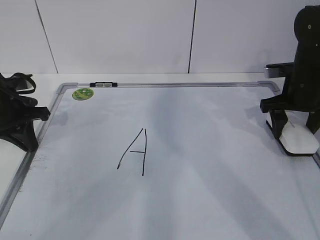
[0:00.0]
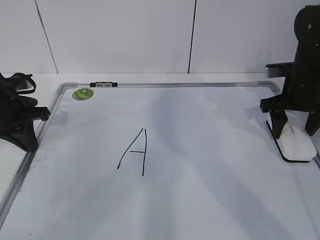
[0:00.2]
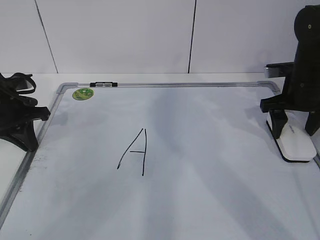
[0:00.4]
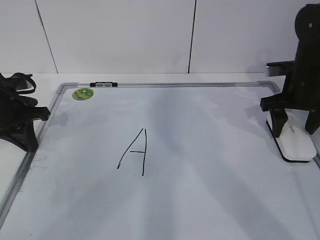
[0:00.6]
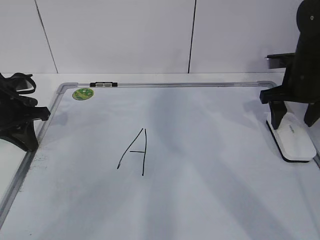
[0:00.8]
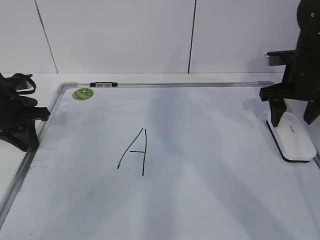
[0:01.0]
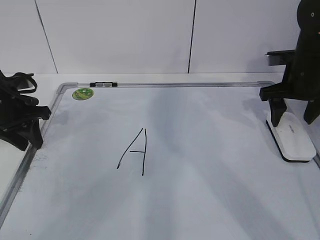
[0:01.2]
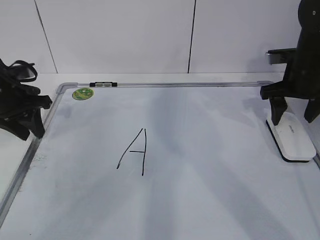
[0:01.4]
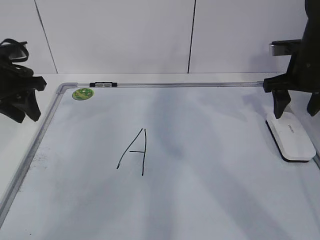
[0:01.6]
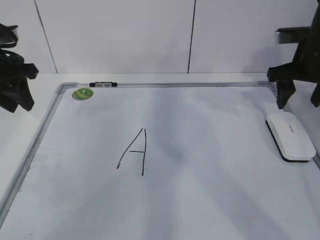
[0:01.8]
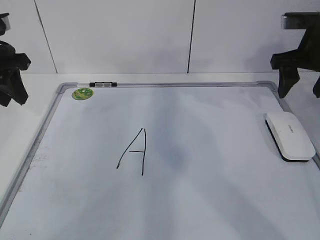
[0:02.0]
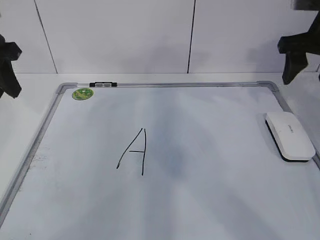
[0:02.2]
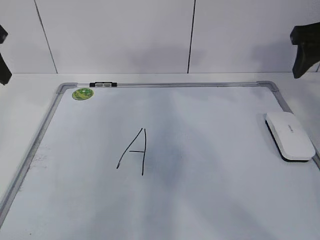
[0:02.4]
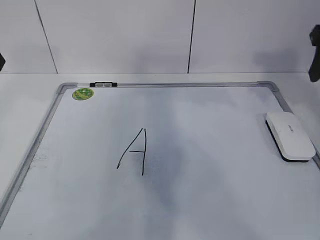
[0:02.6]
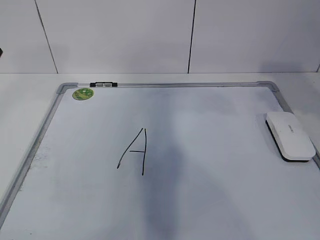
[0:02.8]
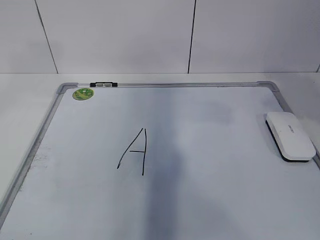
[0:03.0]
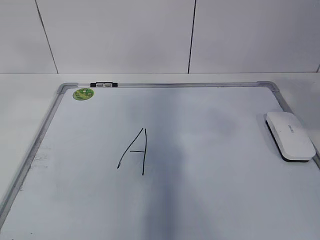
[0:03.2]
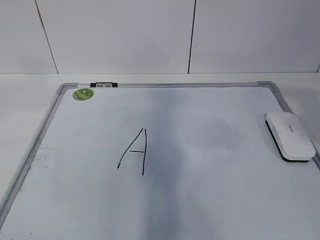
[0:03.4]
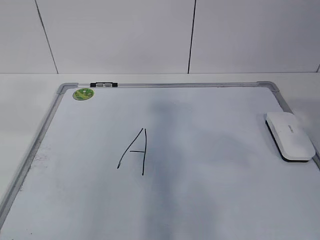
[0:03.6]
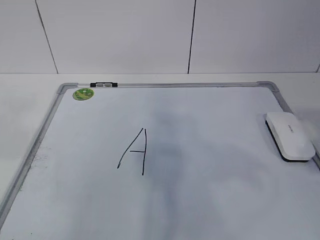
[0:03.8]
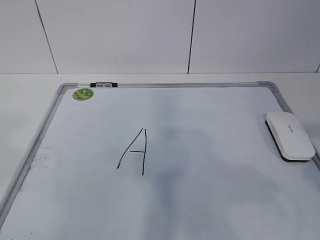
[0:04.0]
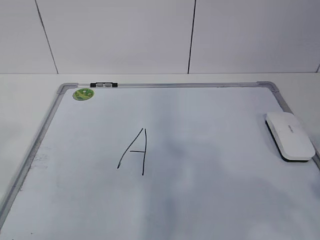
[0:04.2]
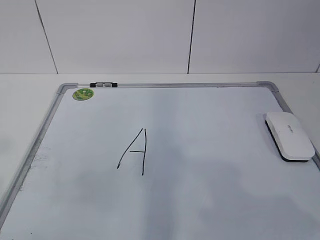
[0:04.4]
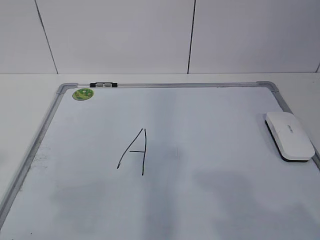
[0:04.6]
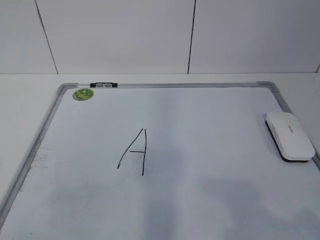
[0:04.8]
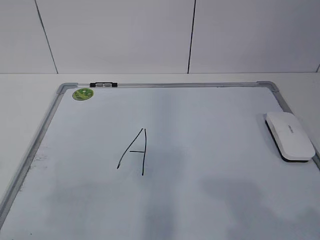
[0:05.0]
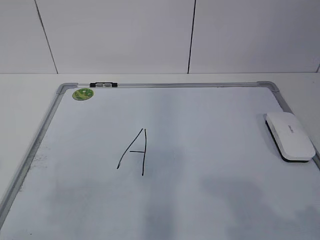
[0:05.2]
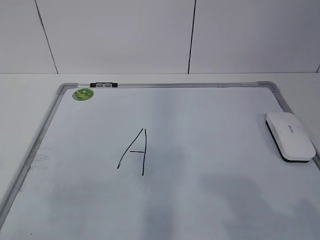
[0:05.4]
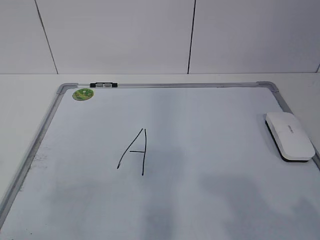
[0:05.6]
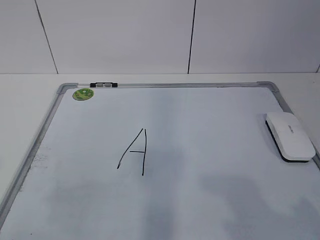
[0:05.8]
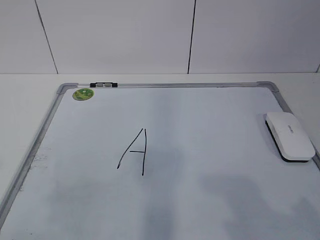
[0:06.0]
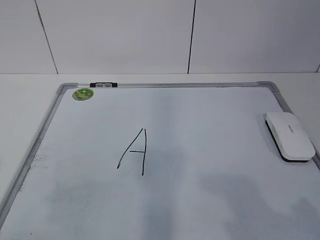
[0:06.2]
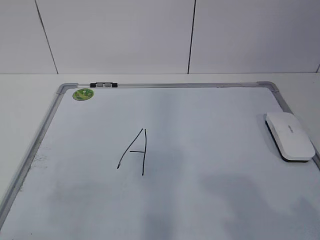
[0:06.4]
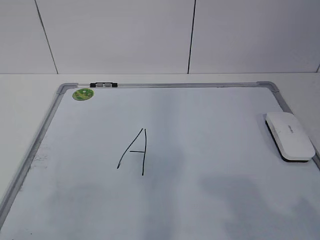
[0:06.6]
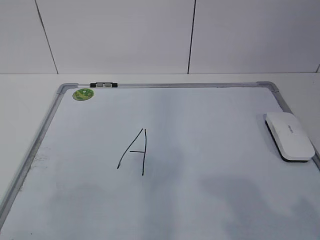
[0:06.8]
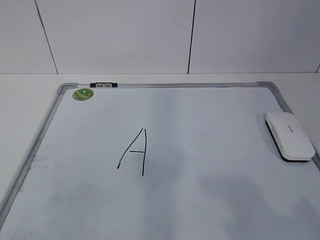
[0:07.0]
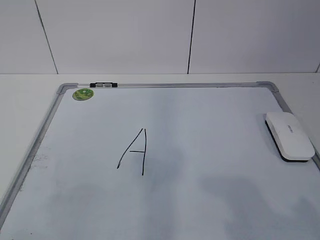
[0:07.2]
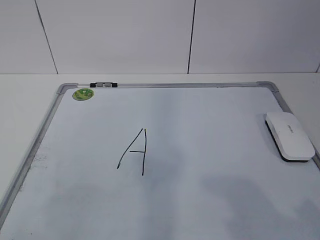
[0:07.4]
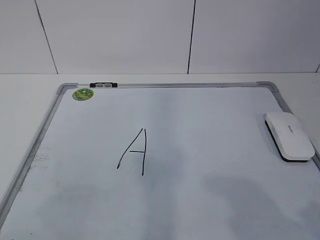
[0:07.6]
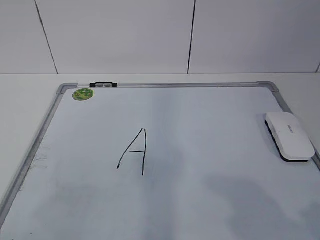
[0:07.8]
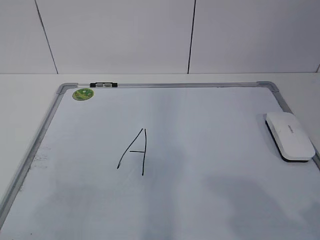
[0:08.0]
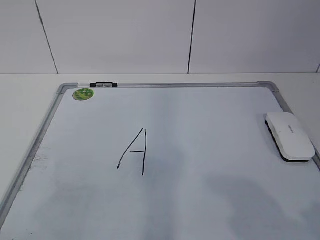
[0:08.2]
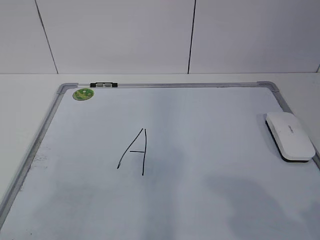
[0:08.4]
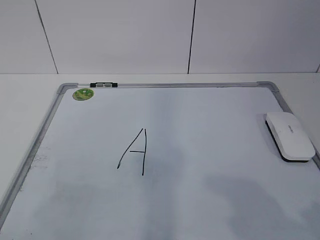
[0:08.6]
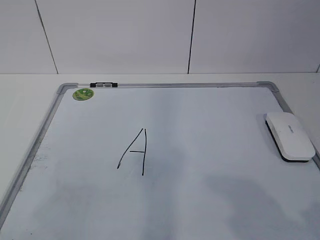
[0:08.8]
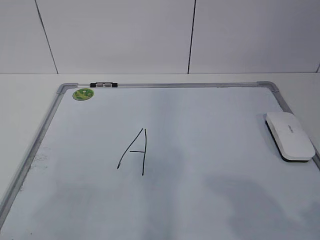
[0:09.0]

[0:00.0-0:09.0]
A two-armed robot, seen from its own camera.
Task of the whole recording: pick up the eraser on the blackboard and erase the letter "a".
0:00.0 to 0:01.6: The left gripper is displaced upward by approximately 5 cm, and opens.
0:01.6 to 0:03.0: The right gripper moves backward and upward, roughly 25 cm. The left gripper moves upward and backward, about 25 cm.
0:03.0 to 0:04.4: The right gripper goes roughly 20 cm backward; the left gripper goes approximately 20 cm backward and downward.
0:07.6 to 0:09.0: Neither gripper changes place.

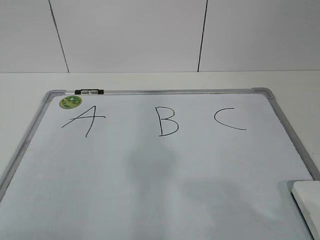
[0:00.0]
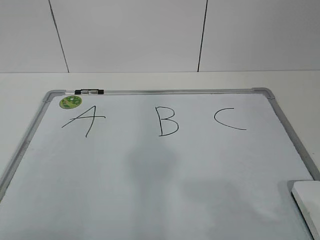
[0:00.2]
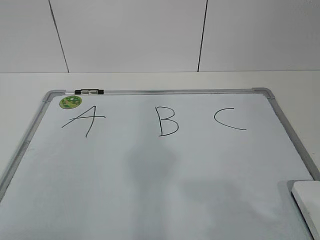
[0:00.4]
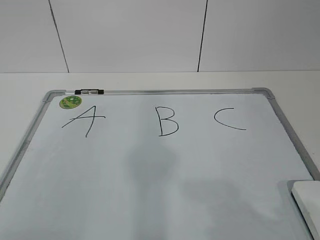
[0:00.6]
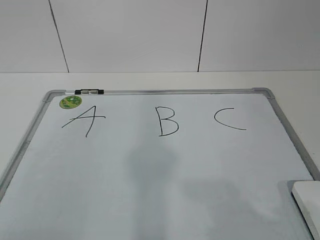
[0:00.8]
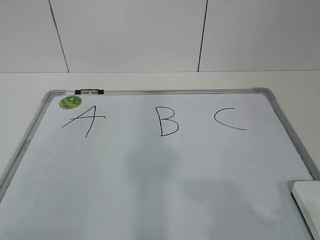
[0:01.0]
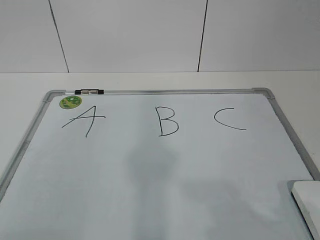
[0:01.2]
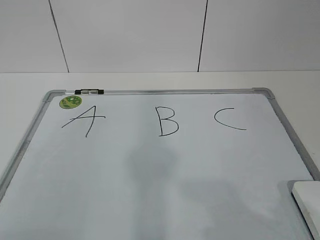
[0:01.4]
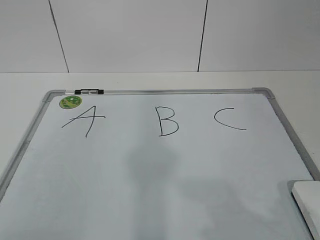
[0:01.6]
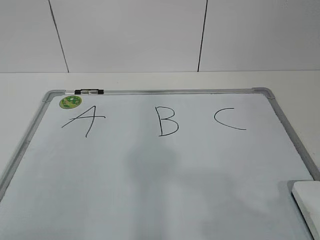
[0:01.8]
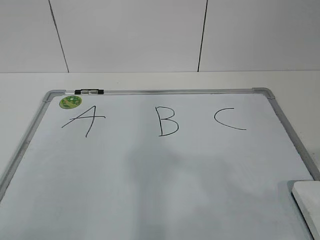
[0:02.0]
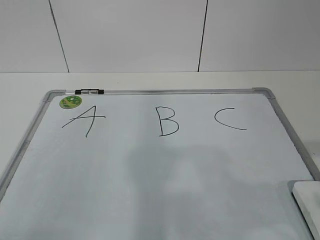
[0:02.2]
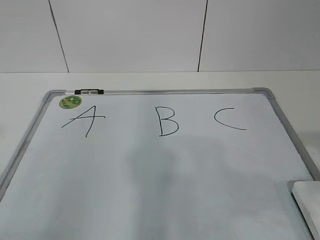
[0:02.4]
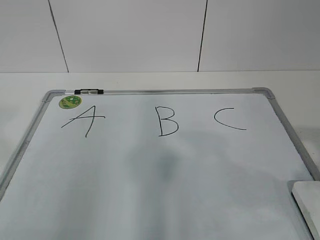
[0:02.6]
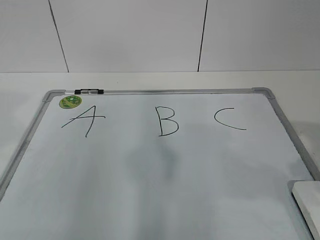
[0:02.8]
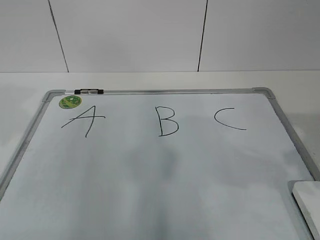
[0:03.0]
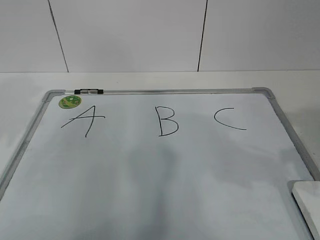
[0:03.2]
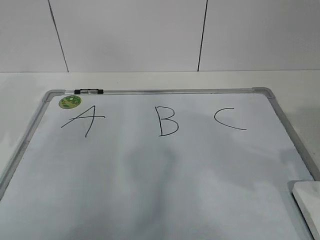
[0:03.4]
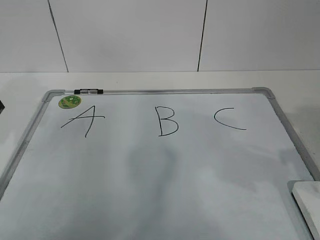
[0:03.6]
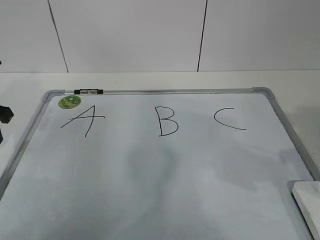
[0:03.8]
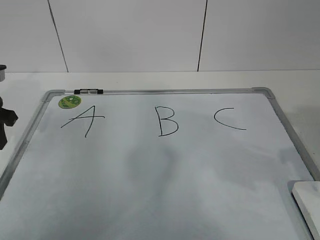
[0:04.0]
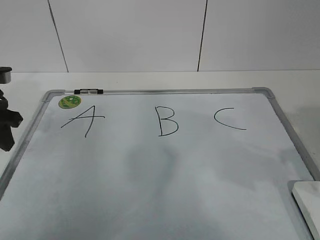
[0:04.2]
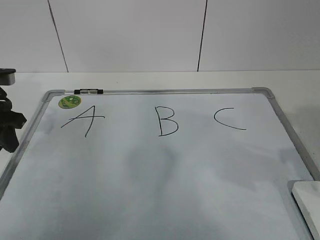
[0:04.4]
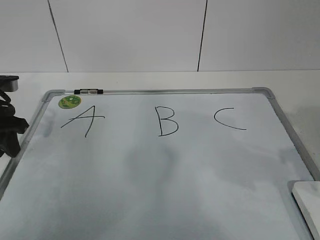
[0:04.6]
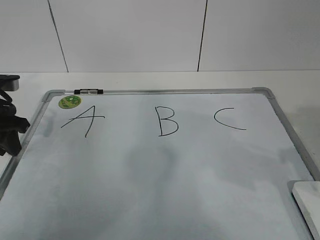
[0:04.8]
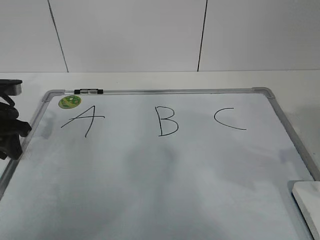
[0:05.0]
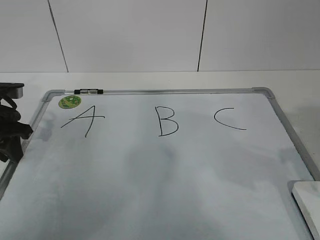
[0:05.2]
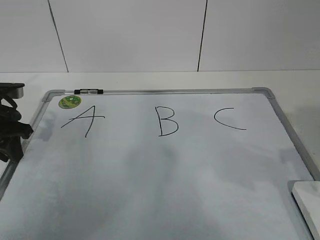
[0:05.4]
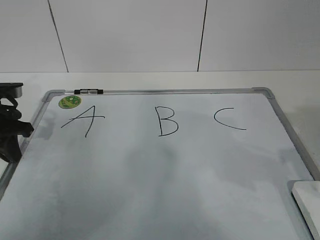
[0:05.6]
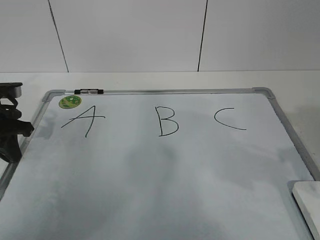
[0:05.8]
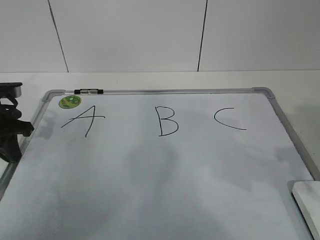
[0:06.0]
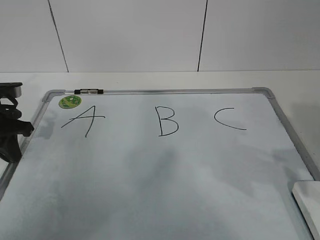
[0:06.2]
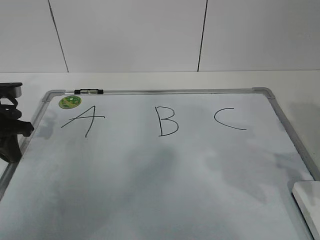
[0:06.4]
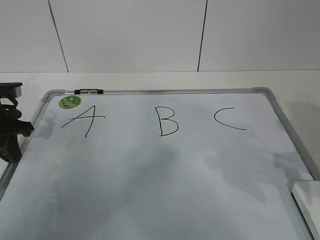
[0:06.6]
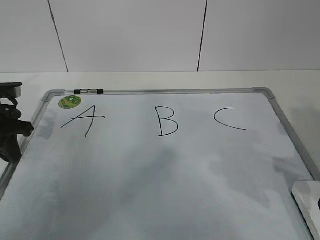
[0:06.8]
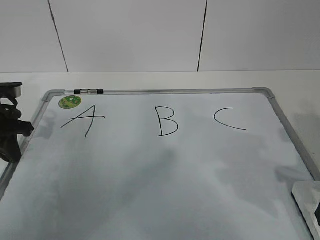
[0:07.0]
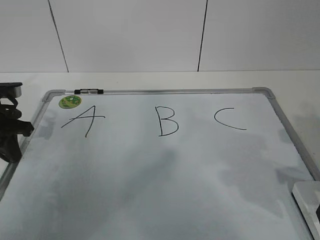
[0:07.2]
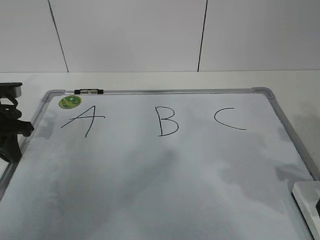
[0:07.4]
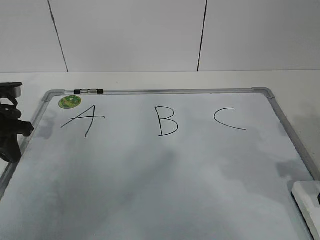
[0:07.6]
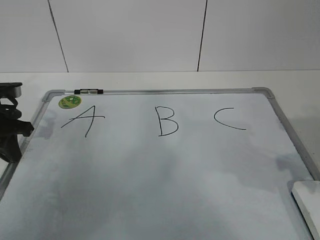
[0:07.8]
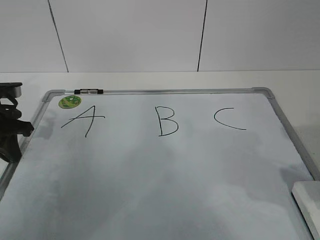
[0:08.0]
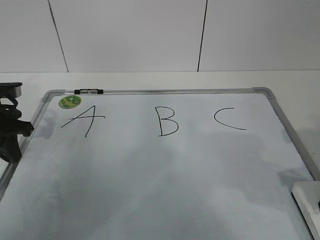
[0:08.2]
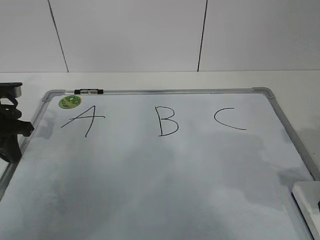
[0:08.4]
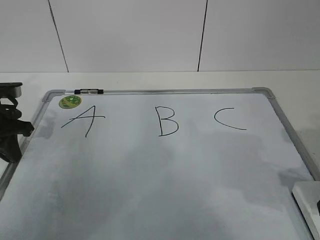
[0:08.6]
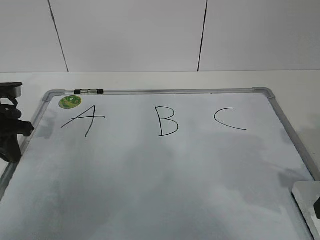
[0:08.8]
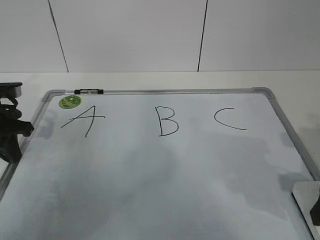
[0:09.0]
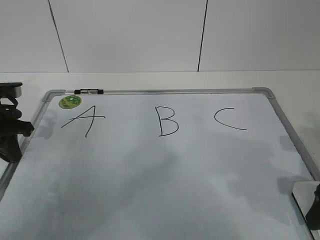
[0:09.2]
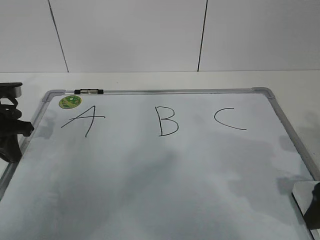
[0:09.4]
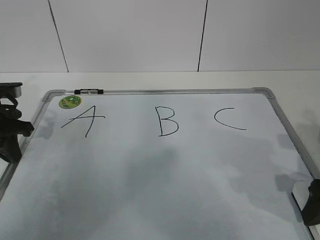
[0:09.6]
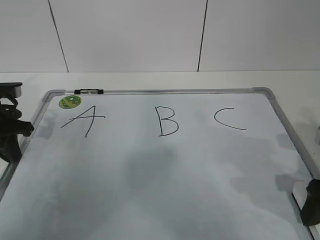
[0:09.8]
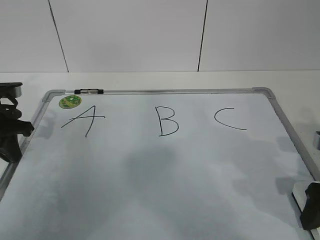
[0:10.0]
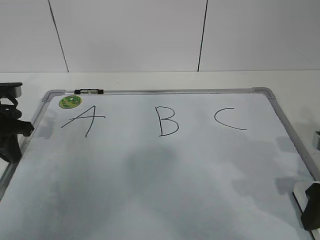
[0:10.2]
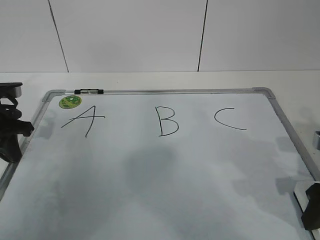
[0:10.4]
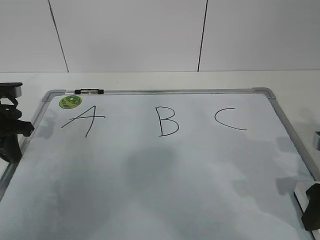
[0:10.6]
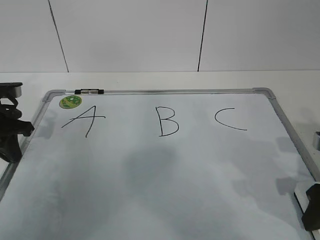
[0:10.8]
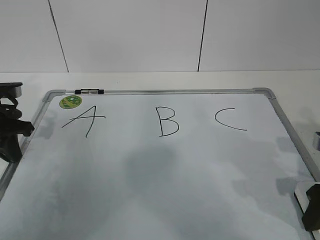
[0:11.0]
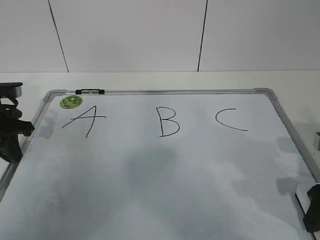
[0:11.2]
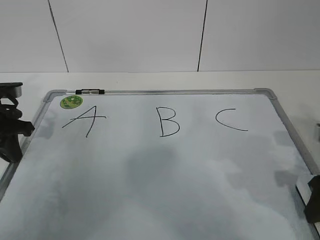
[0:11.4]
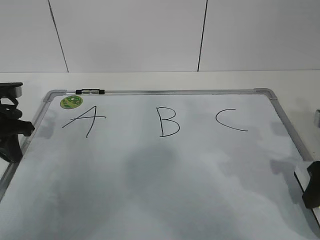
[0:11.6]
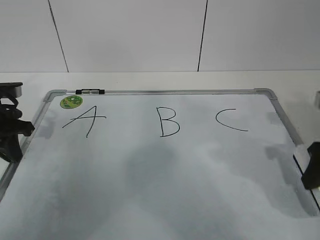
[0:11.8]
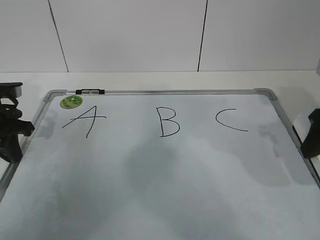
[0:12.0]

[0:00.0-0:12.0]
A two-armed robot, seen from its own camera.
Task of the whole recording: pick up the eraser on the blackboard and erase the letter "B".
Step, 0:00.0 to 0:05.6: Fixed the drawing board with the left gripper.
Step, 0:05.8 to 0:11.4: pick up the blackboard eraser with the right gripper.
0:01.6 to 0:03.0: The grippers both shift forward by roughly 20 cm.
0:03.0 to 0:04.4: The left gripper travels downward and forward by roughly 15 cm.
0:04.4 to 0:06.0: The left gripper closes.
0:07.6 to 0:09.0: The right gripper opens.
0:09.0 to 0:10.4: The right gripper closes.
0:10.4 to 0:12.0: The right gripper travels upward by some 10 cm.

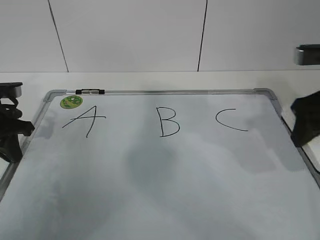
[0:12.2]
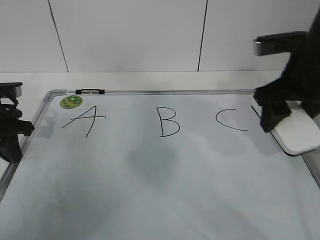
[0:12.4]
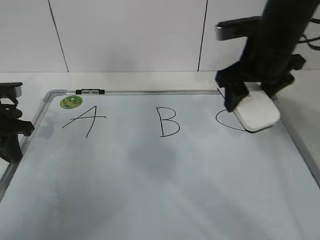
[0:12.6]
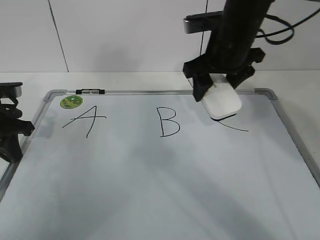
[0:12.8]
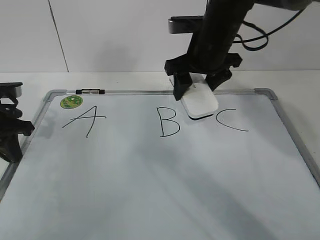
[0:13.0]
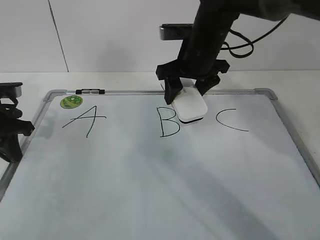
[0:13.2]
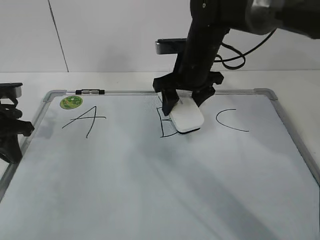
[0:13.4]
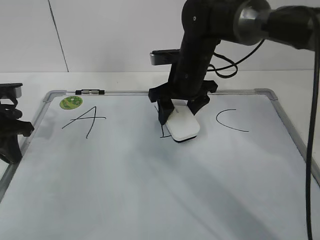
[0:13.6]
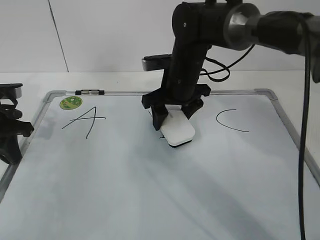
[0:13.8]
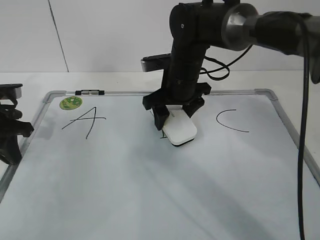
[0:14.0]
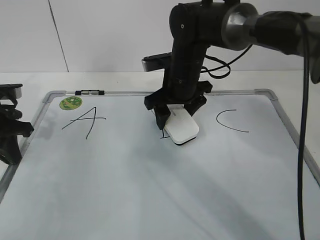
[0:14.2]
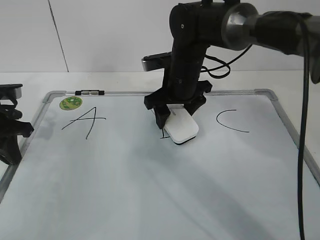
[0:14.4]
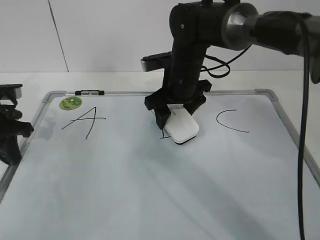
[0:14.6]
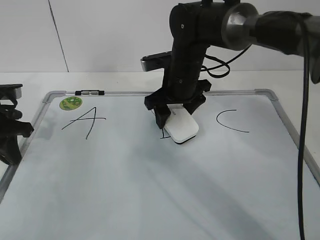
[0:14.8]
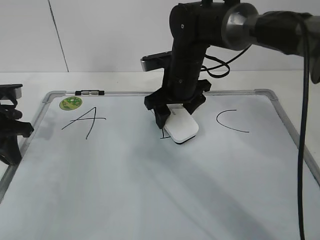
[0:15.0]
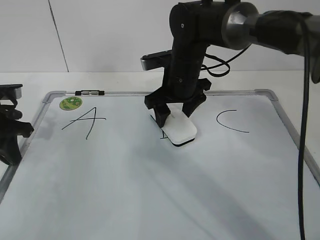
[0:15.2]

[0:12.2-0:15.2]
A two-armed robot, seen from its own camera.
Task of the whole recording: pick up the eraser on the blackboard and erase the letter "B".
0:12.2 to 0:13.8: The right gripper shifts roughly 25 cm to the left, forward and downward.
0:13.8 to 0:15.2: The right gripper opens up.
